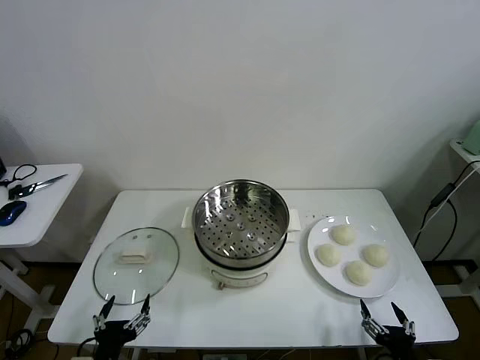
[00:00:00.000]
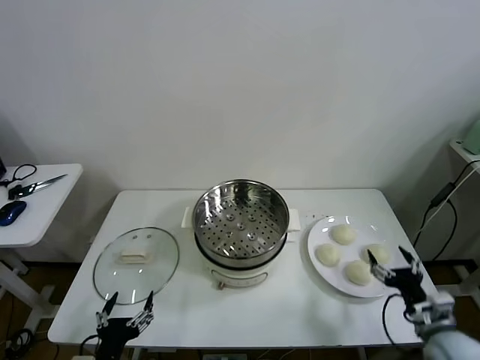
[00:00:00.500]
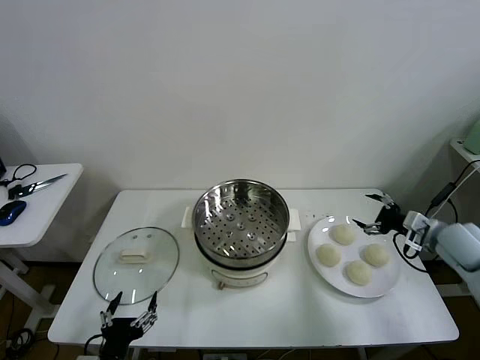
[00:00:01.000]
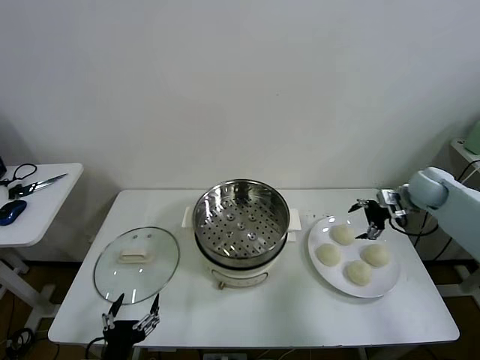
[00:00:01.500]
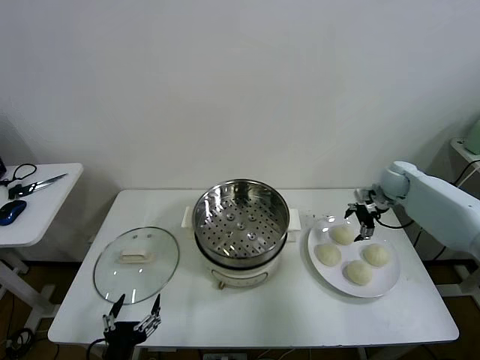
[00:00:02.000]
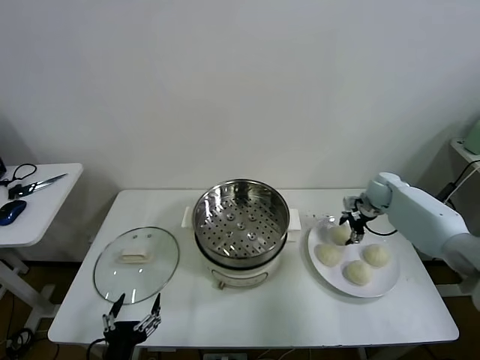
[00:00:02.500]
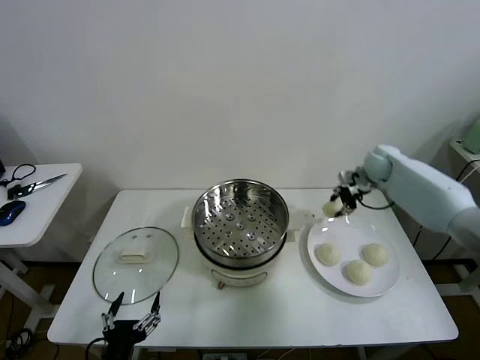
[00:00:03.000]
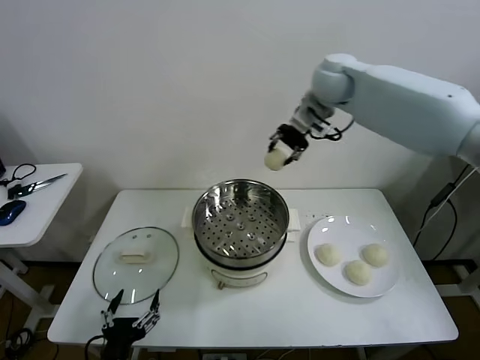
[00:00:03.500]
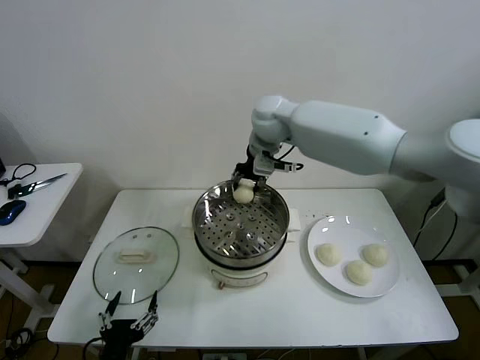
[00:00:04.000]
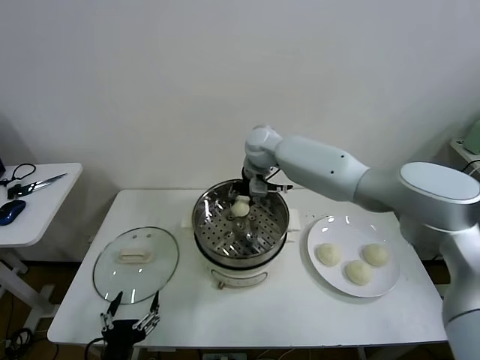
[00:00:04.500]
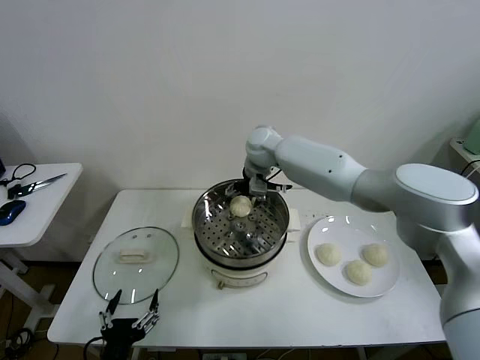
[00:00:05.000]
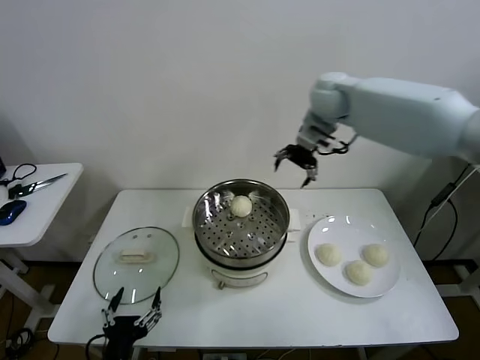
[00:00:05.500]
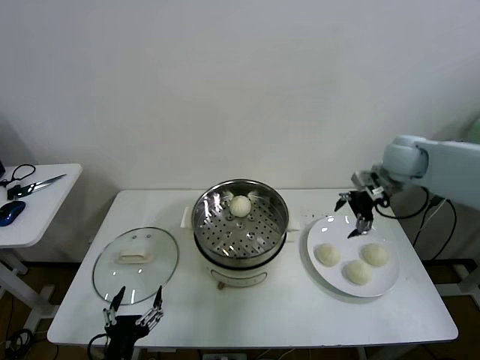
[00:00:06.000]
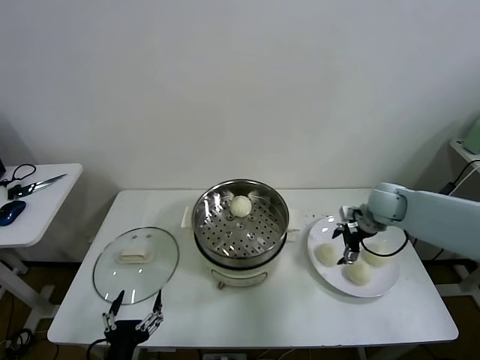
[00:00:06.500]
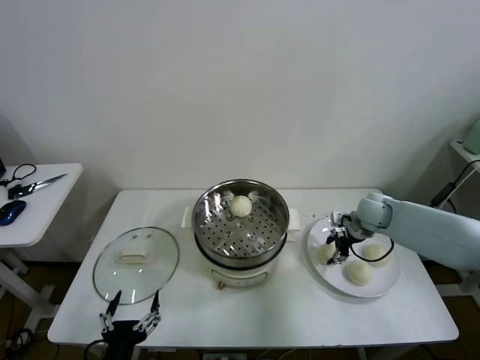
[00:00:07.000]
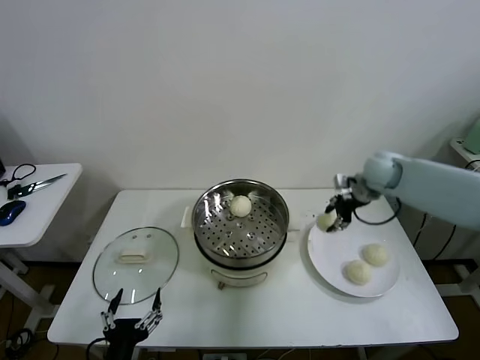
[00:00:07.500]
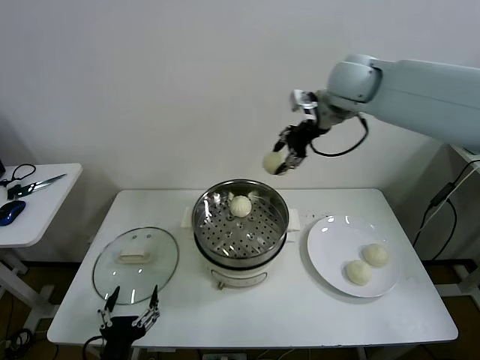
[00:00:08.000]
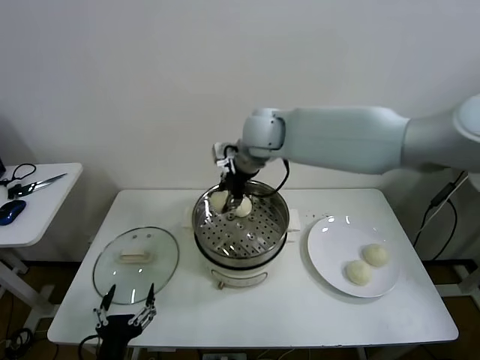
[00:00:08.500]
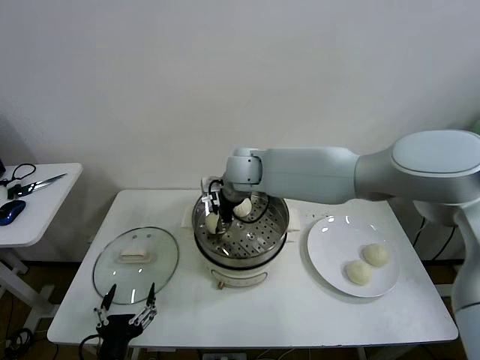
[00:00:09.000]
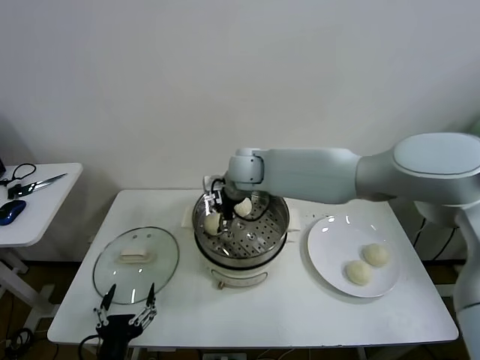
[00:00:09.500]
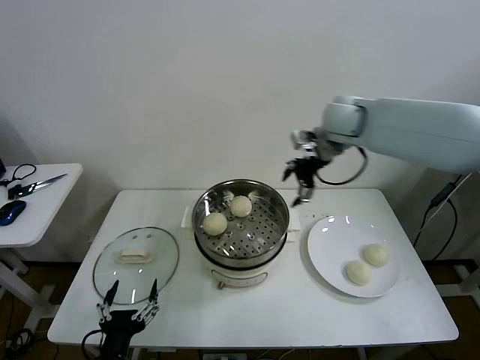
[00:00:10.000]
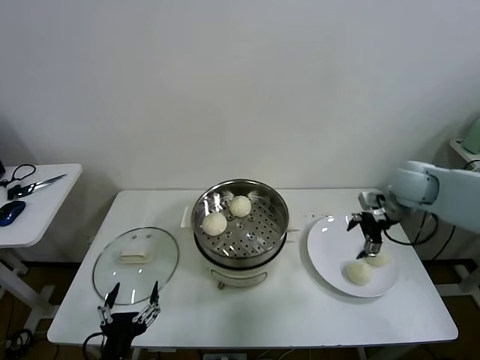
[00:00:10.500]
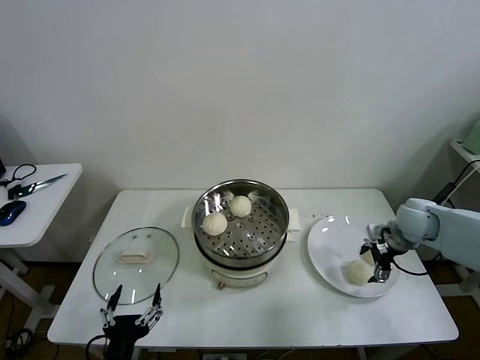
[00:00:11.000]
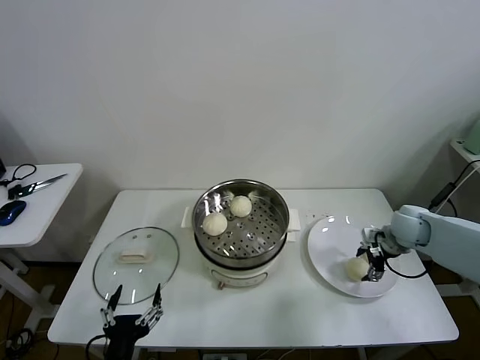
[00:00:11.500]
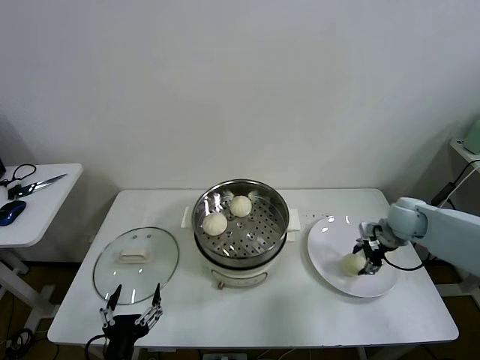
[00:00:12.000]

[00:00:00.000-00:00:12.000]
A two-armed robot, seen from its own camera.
Task of the whole recording: take steamed baozi put them in steamer then cover it.
Step, 00:00:00.000 to 00:00:02.500: Grasp the baozi in the plate with right gripper.
Step, 00:00:03.000 to 00:00:04.500: Place the baozi on the steamer with right gripper.
Step, 00:00:05.000 to 00:00:07.000: Grasp the baozi in the plate with right gripper.
Step, 00:00:07.500 to 00:00:09.500: Place the baozi on the steamer with right gripper.
Step, 00:00:10.000 to 00:00:11.500: Grasp the baozi in the plate with right gripper.
00:00:02.000 to 00:00:04.000: The right gripper travels to the left and upward by approximately 40 cm, and closes.
00:00:04.000 to 00:00:06.000: The right gripper shifts some 30 cm to the right, and opens.
00:00:06.000 to 00:00:08.000: The right gripper goes roughly 25 cm to the left and upward, and closes up.
00:00:08.000 to 00:00:10.000: The right gripper heads downward, covering about 10 cm, moves some 15 cm to the left and comes back, and opens its fingers.
00:00:10.000 to 00:00:12.000: The right gripper moves downward and to the right, some 25 cm, and closes.

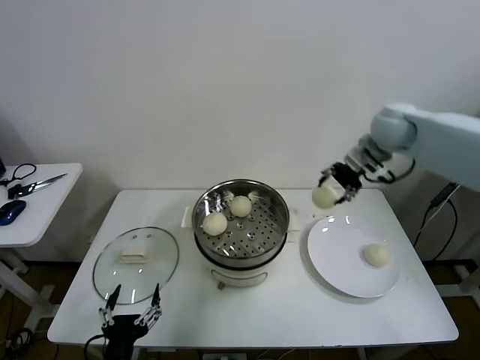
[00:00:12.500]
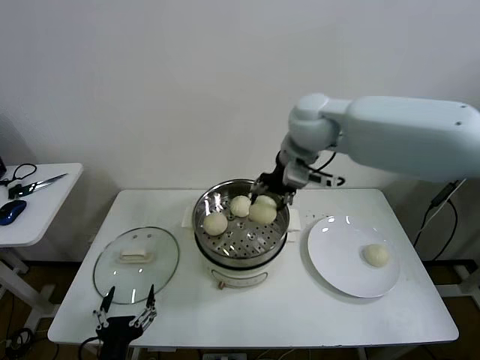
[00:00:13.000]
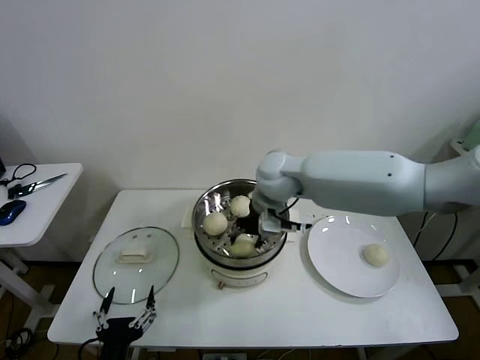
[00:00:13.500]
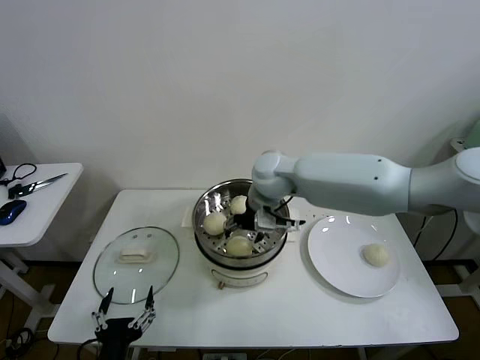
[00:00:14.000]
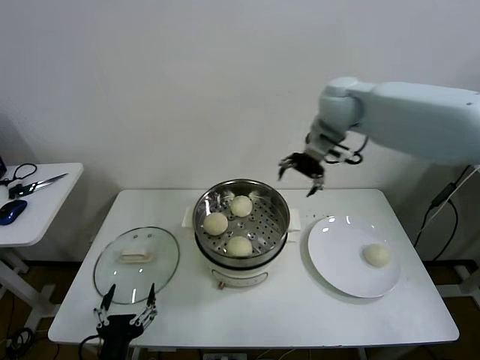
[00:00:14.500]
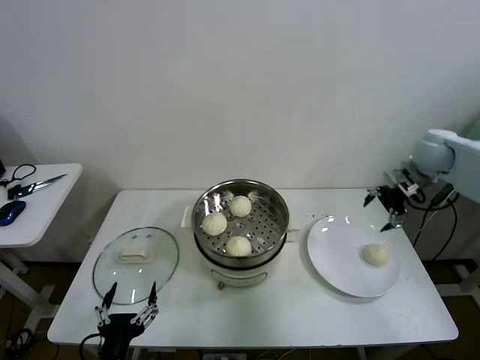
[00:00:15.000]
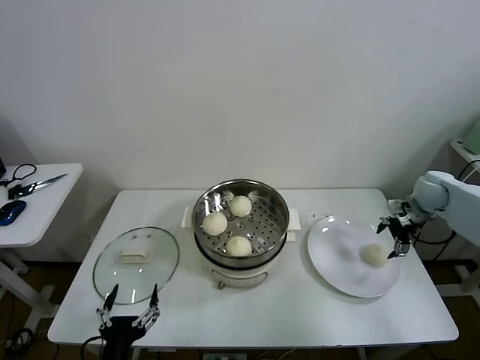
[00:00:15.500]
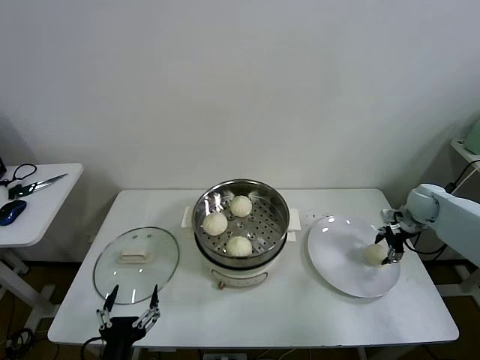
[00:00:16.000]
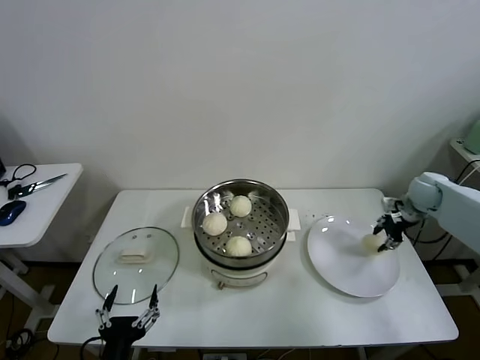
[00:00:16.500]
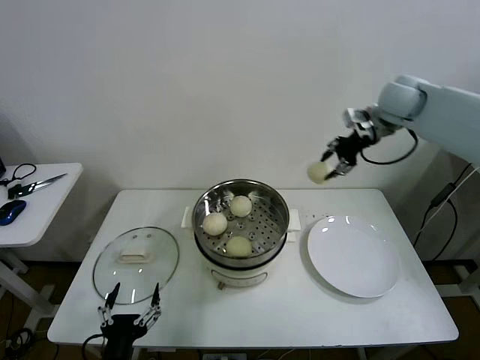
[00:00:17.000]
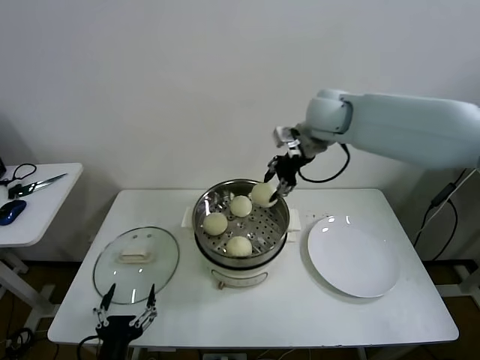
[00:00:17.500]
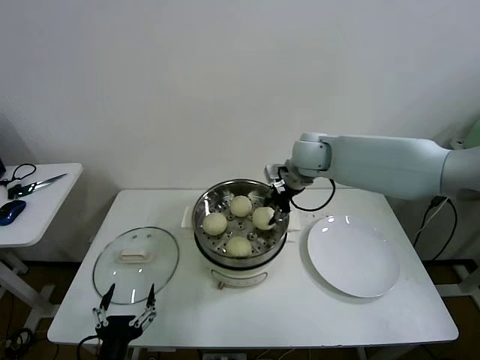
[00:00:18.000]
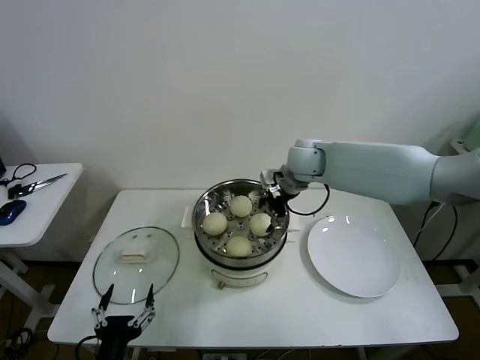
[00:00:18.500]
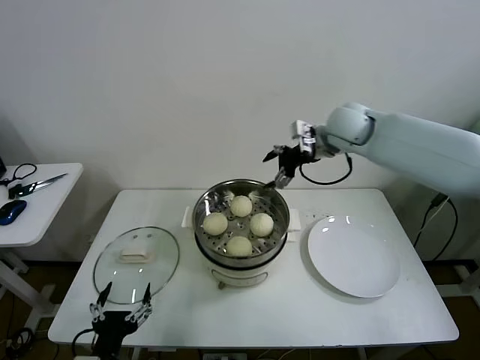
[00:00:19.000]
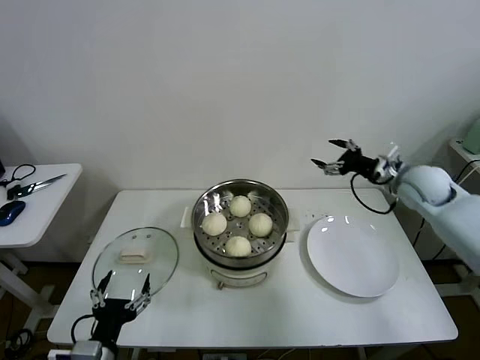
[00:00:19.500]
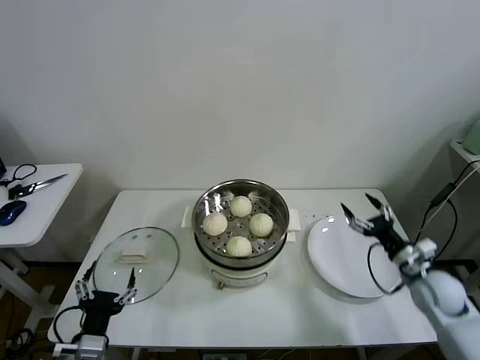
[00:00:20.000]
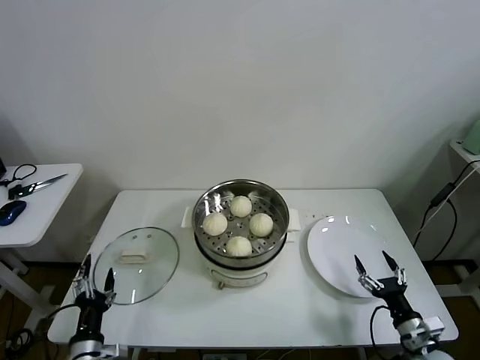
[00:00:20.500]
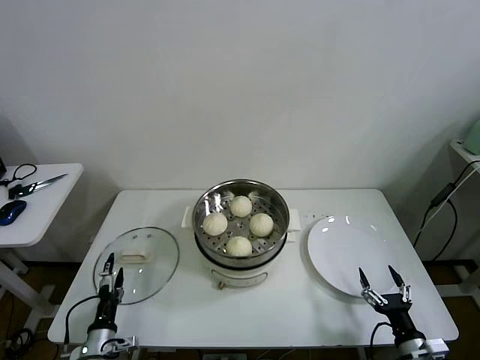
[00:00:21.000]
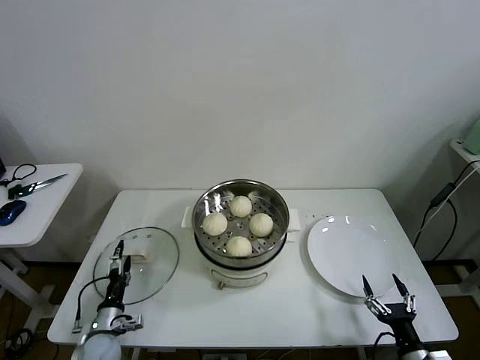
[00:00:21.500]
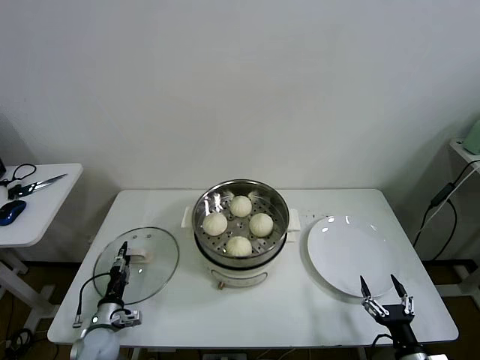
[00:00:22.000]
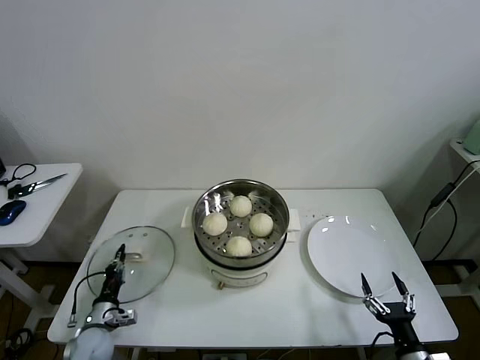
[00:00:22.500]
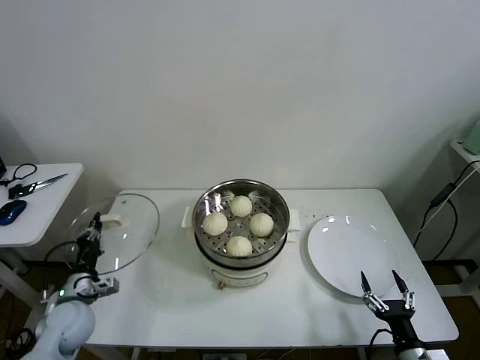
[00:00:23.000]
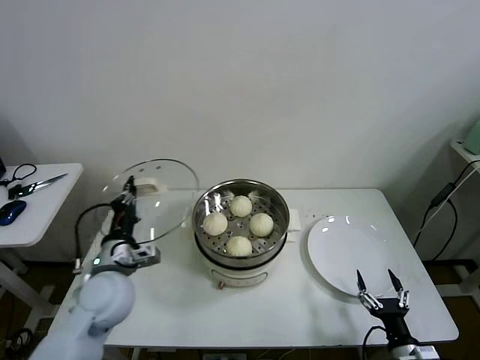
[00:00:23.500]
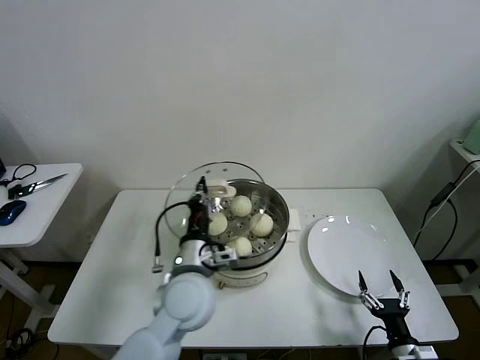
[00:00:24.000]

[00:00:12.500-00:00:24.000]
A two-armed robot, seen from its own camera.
Task of the whole recording: take steamed baozi put them in steamer then cover it.
Step, 00:00:14.500 to 00:00:16.000: Grasp the baozi in the plate with right gripper.
Step, 00:00:16.500 to 00:00:18.000: Place the baozi on the steamer with right gripper.
Step, 00:00:18.500 to 00:00:22.000: Grasp the pot lid with left gripper.
00:00:12.500 to 00:00:14.500: The right gripper moves some 20 cm to the left and comes back, and opens.
00:00:14.500 to 00:00:16.500: The right gripper moves to the right and downward, about 35 cm, and closes.
00:00:16.500 to 00:00:18.500: The right gripper heads to the left, covering some 30 cm, and opens up.
00:00:18.500 to 00:00:20.000: The right gripper goes roughly 40 cm to the right, backward and downward. The left gripper ends up about 5 cm from where it was.
00:00:20.000 to 00:00:22.000: The left gripper is displaced downward, forward and to the left by approximately 25 cm, and closes up; the right gripper travels backward and downward by some 20 cm.
00:00:22.000 to 00:00:24.000: The left gripper is displaced upward and to the right by some 35 cm, and closes its fingers.

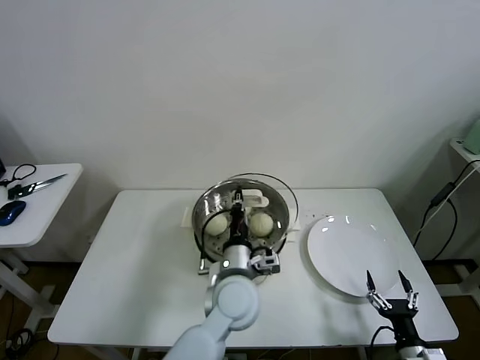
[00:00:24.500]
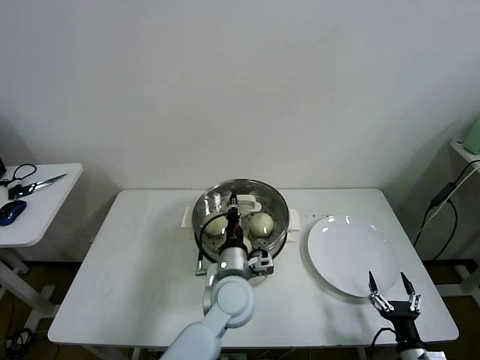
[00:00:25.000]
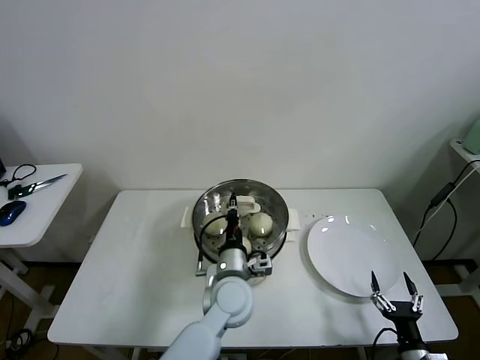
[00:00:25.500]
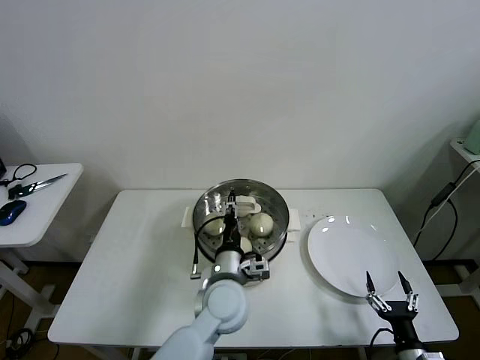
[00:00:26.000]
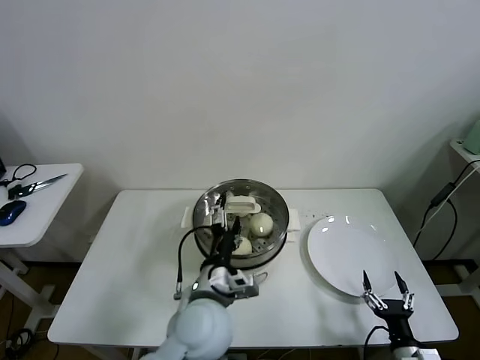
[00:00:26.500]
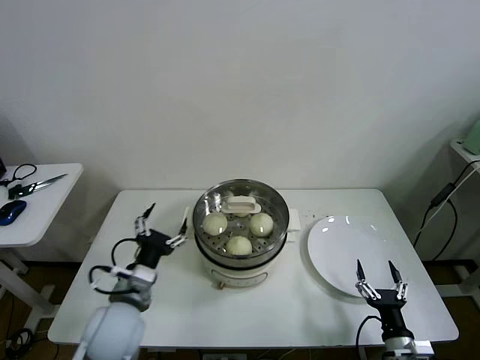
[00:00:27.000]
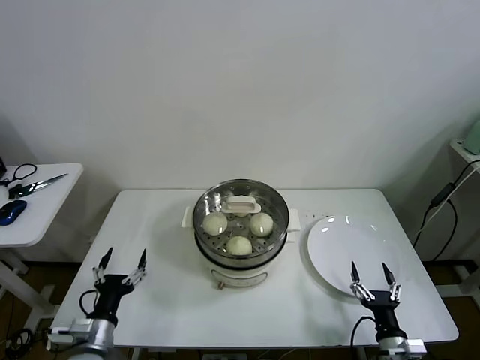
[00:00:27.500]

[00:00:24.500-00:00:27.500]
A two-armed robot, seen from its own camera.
Task of the whole recording: take steamed baozi put them in steamer then cover it.
00:00:24.500 to 00:00:26.000: The left gripper opens up.
00:00:26.000 to 00:00:27.500: The left gripper heads to the left, covering about 30 cm, and opens up.
